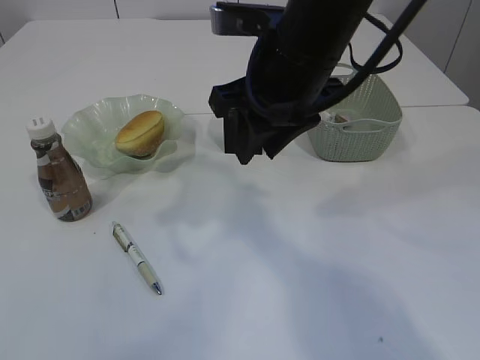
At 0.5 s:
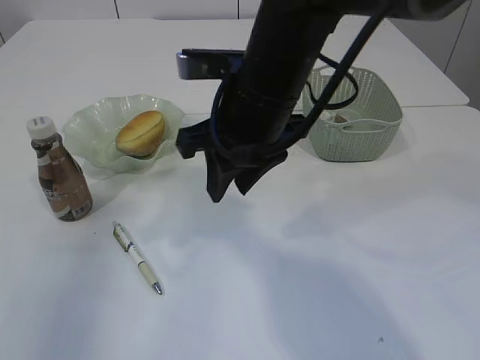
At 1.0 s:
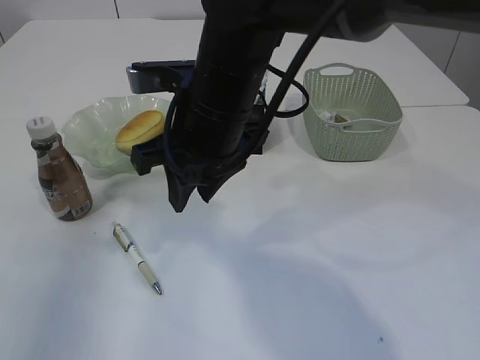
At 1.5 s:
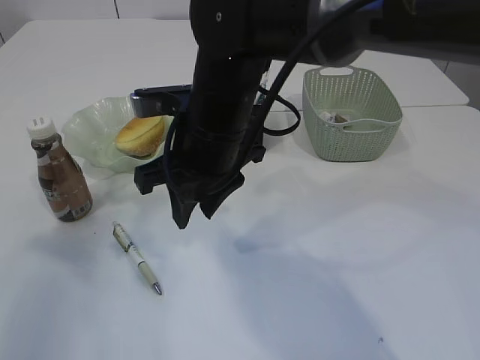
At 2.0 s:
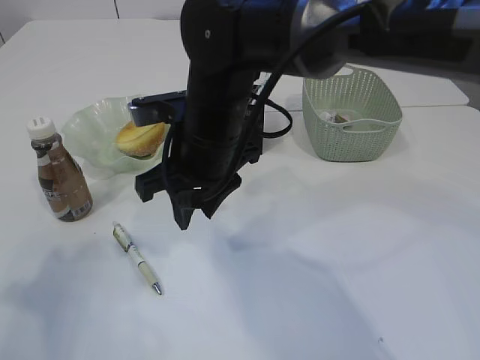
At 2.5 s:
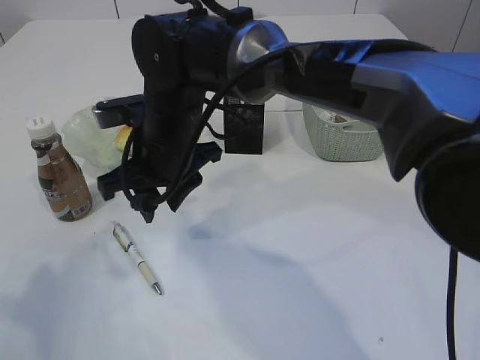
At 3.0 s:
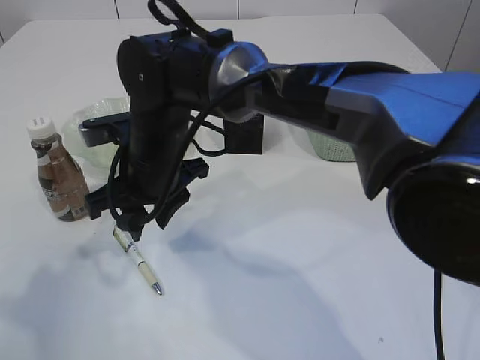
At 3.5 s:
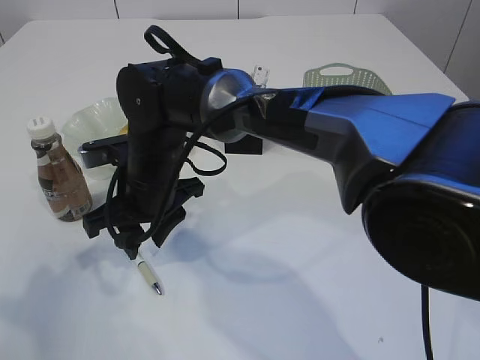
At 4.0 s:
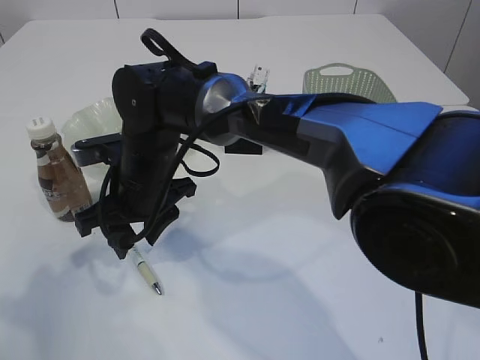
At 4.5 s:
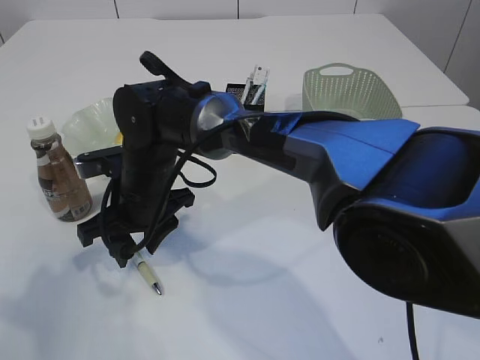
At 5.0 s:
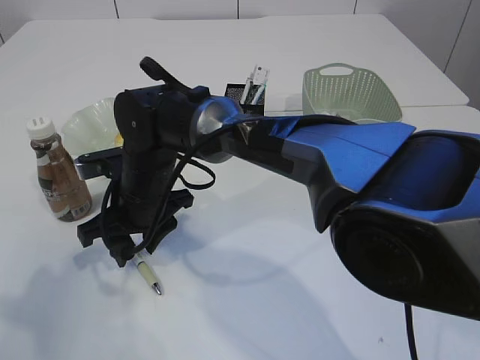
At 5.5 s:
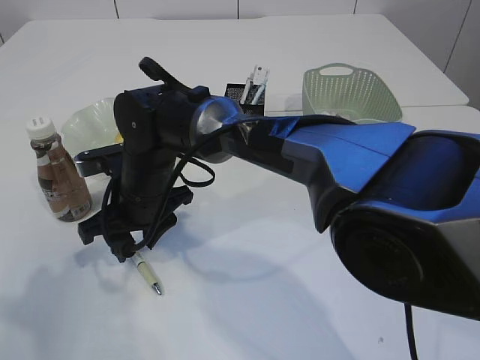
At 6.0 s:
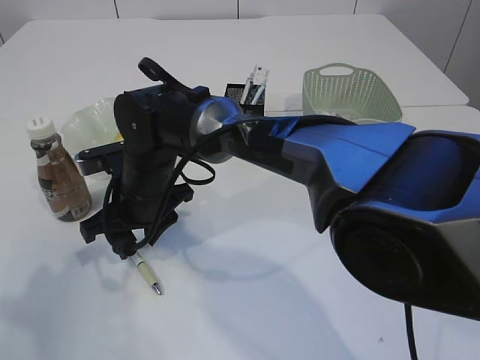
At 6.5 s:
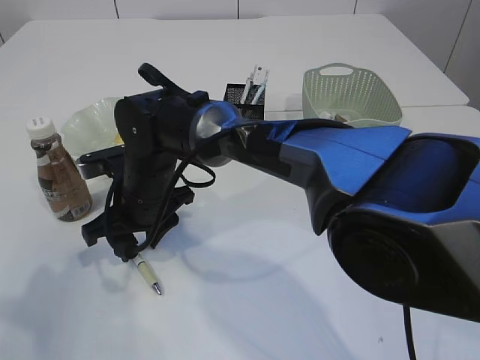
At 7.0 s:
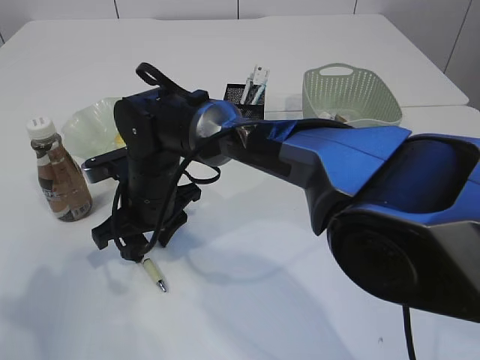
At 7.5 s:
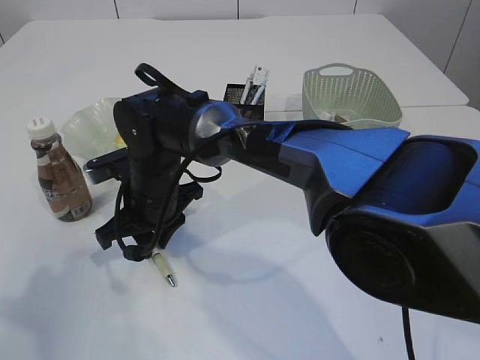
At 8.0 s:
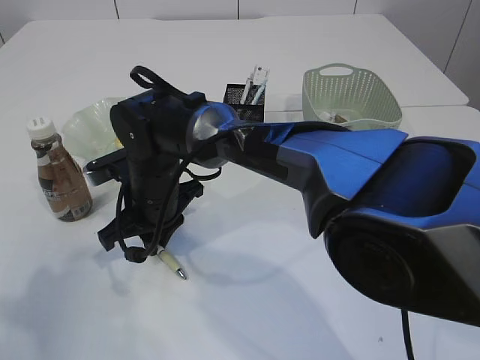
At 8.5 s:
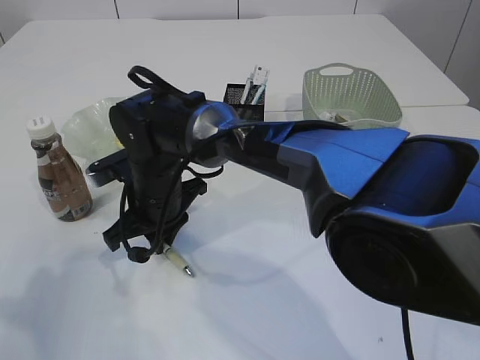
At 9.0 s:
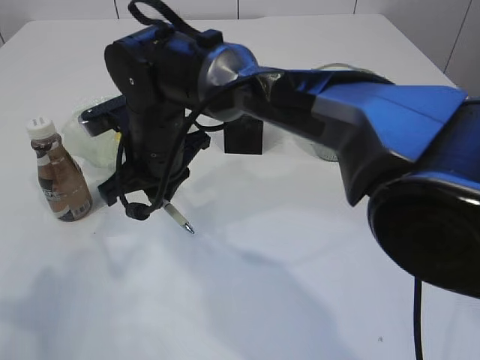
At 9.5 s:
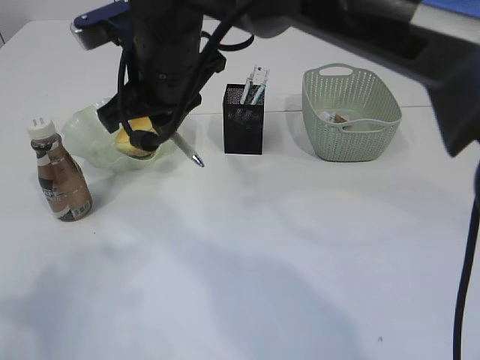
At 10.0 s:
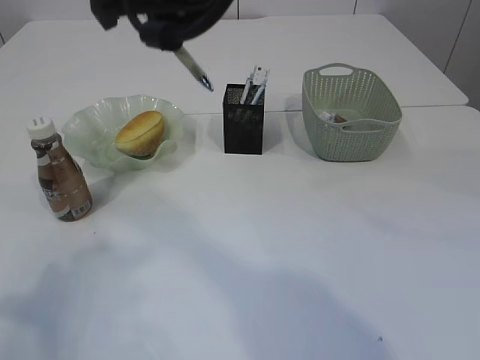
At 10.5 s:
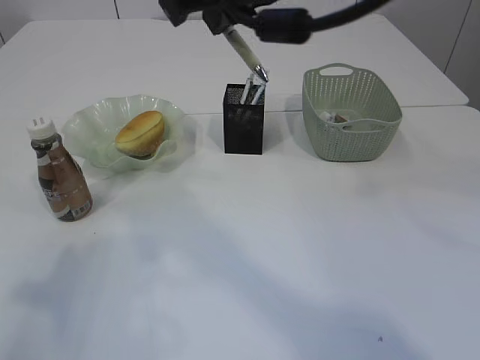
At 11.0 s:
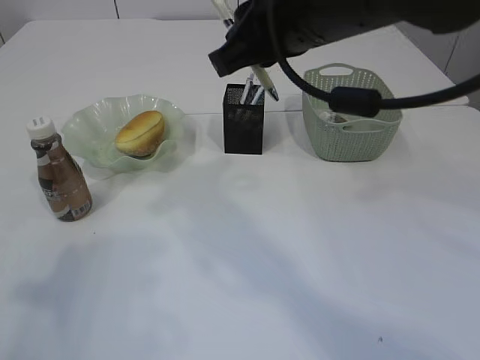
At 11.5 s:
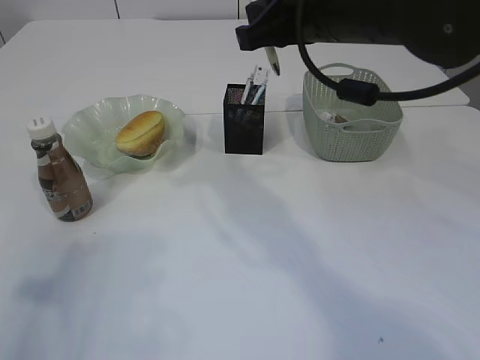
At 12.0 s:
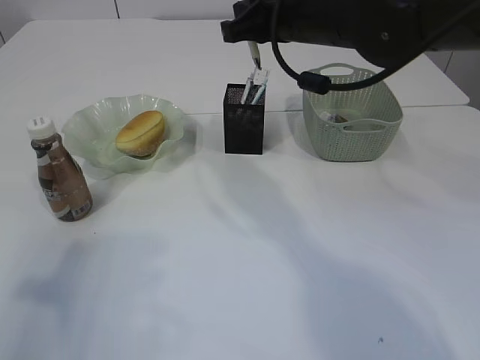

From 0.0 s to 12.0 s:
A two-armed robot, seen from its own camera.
Step, from 0.0 s to 9.0 s: Pick up the pen with right arm.
From 0.0 s to 2.0 s: The left gripper travels downward, backward and to the left by roughly 25 cm, while the right gripper is displaced to the left and downward by about 10 cm.
From 2.0 s to 4.0 s: The right gripper heads to the left and downward, covering some 10 cm.
From 4.0 s to 6.0 s: The grippers move only a little.
From 6.0 s to 8.0 s: The right gripper closes its fingers.
From 8.0 s to 10.0 s: The right gripper shifts approximately 25 cm upward.
From 10.0 s to 12.0 s: The right gripper goes some 15 cm to the right, downward and forward.

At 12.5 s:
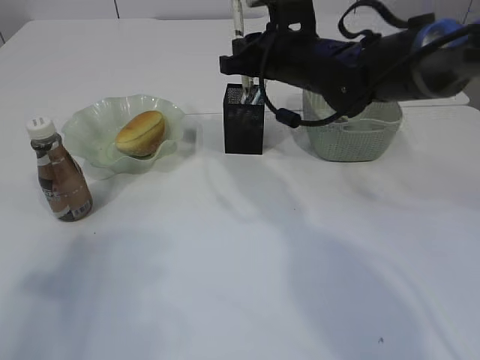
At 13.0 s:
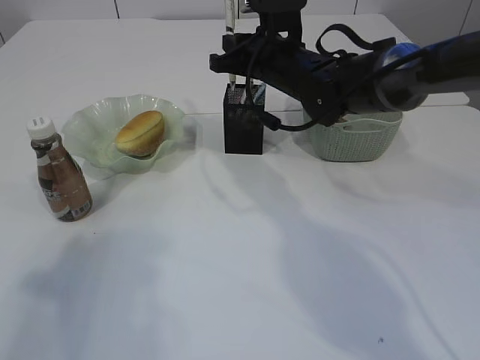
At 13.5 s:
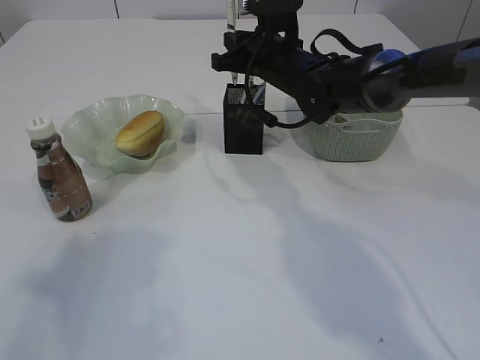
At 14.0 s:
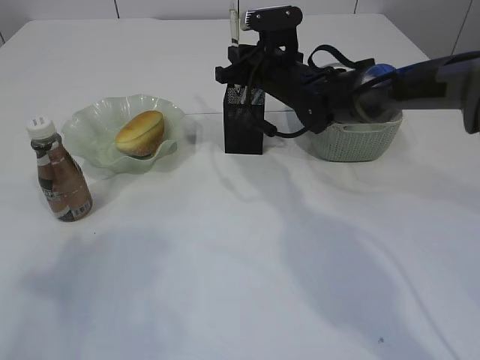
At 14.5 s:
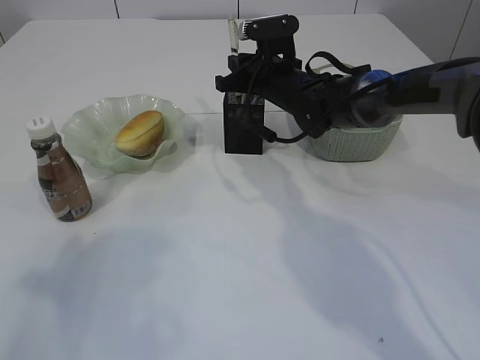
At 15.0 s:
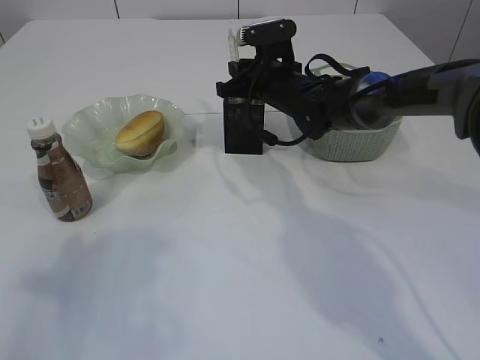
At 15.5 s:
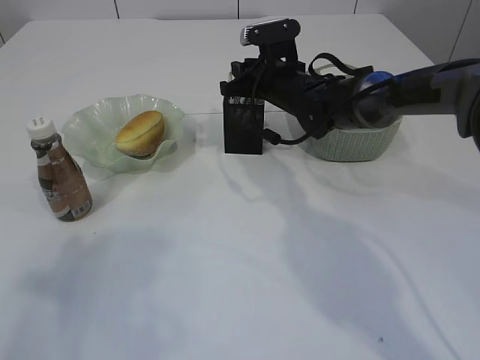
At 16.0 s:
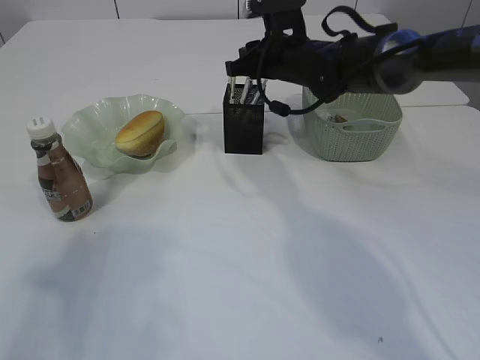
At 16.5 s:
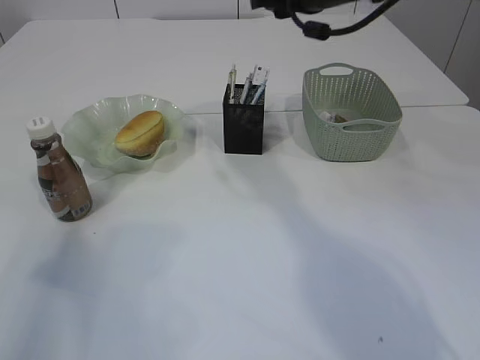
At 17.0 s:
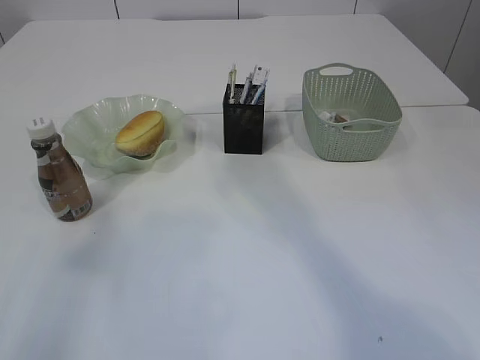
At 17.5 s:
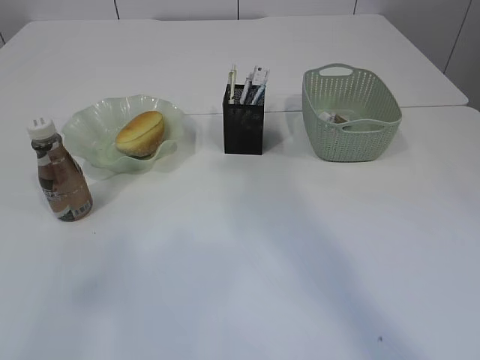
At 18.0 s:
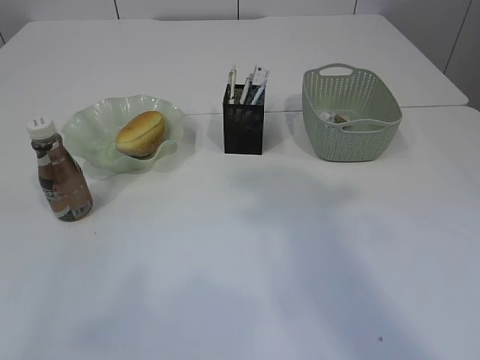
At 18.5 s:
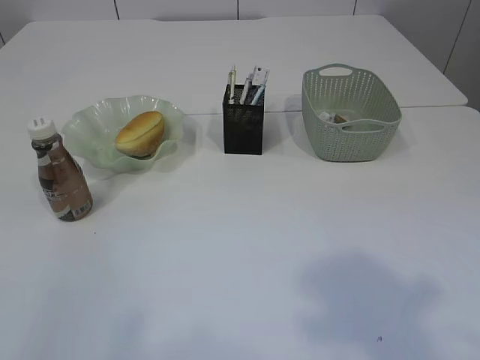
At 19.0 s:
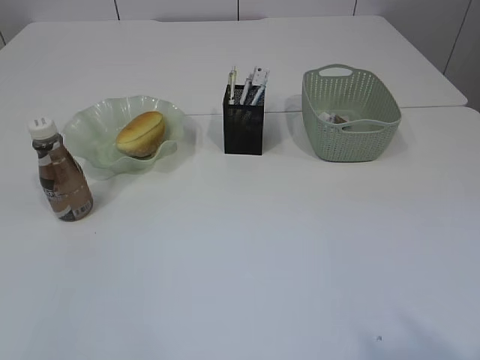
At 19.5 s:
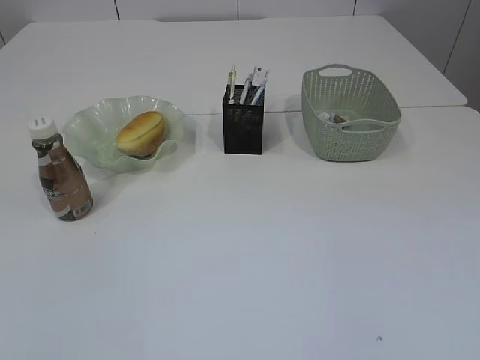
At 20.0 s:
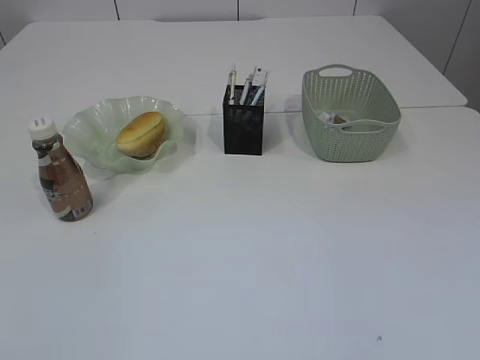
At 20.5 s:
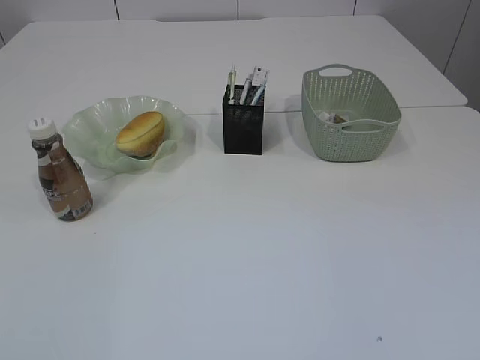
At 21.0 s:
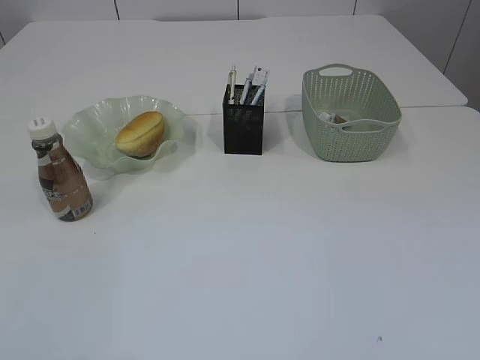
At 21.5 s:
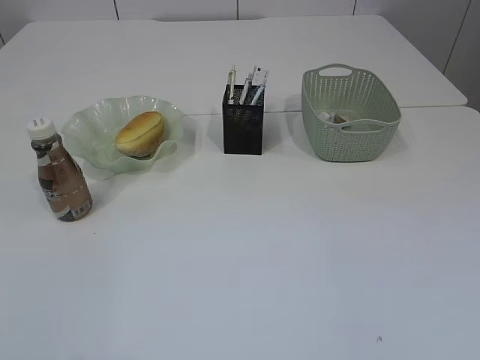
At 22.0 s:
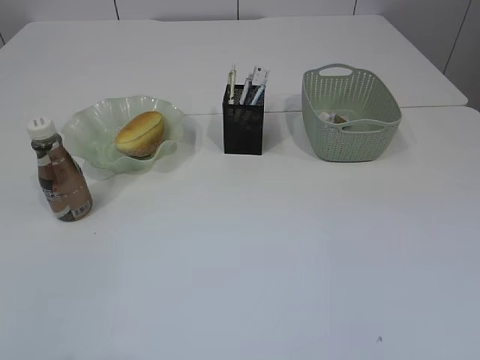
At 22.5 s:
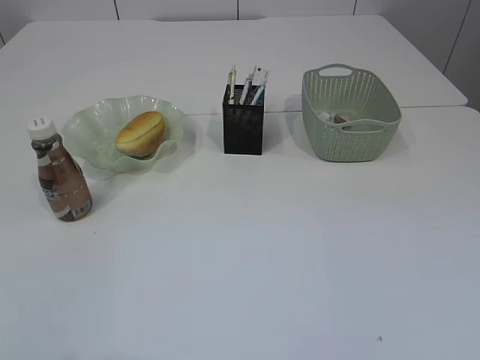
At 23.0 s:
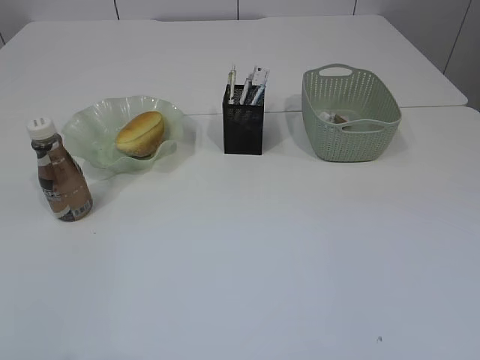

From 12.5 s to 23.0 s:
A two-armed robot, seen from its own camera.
Step, from 12.5 s to 16.0 s: Place the pen into the pen holder.
From 12.5 s to 14.5 s: The right gripper travels downward and forward by approximately 10 cm.
From 14.5 s to 16.5 s: The left gripper opens. The right gripper heads upward, covering about 15 cm, and opens its fingers.
From 16.5 s to 19.0 s: The left gripper moves backward, about 20 cm, while the right gripper moves backward, about 50 cm.
